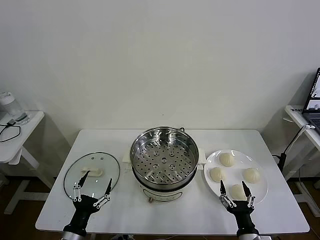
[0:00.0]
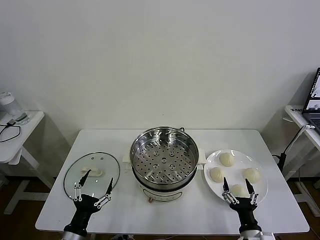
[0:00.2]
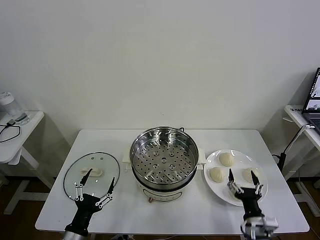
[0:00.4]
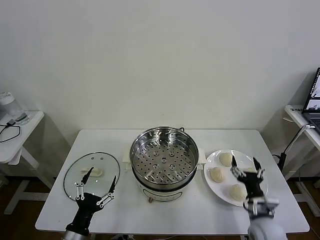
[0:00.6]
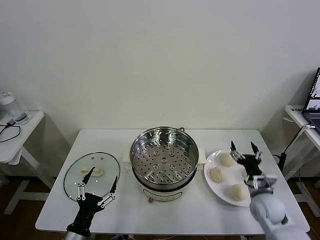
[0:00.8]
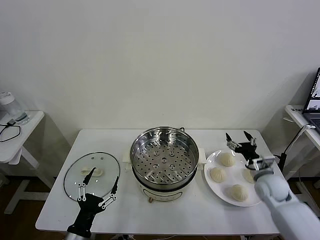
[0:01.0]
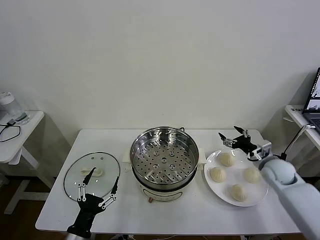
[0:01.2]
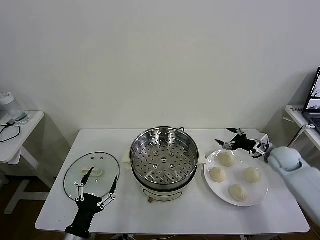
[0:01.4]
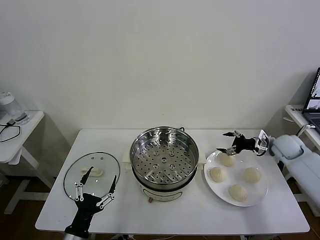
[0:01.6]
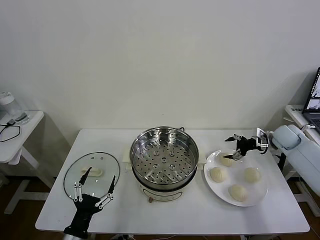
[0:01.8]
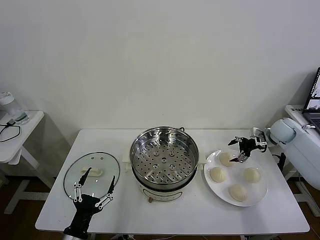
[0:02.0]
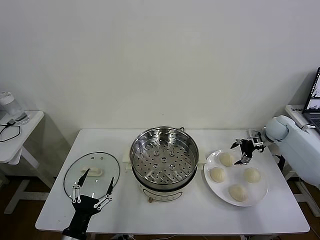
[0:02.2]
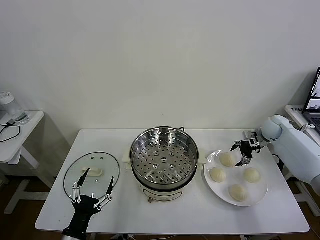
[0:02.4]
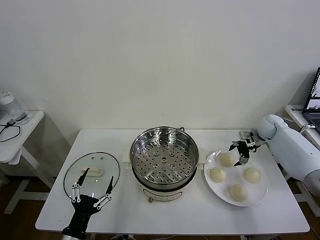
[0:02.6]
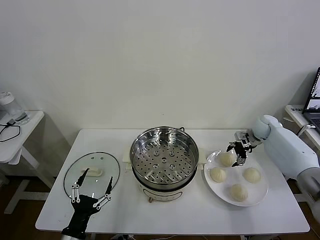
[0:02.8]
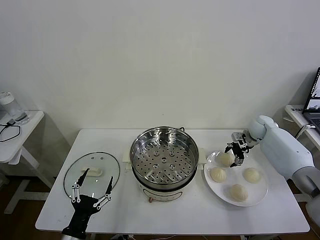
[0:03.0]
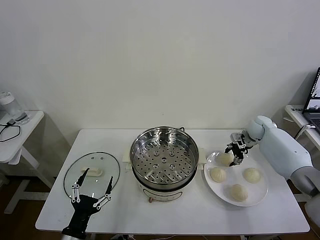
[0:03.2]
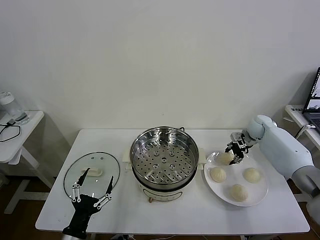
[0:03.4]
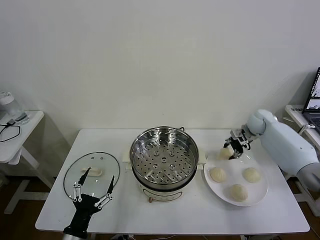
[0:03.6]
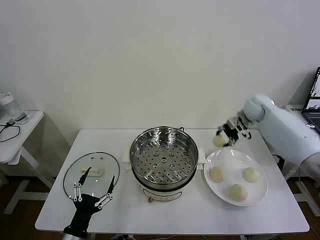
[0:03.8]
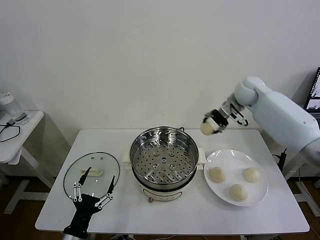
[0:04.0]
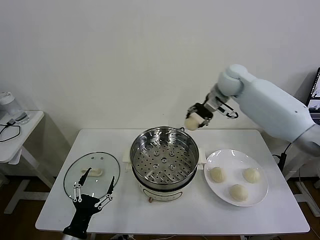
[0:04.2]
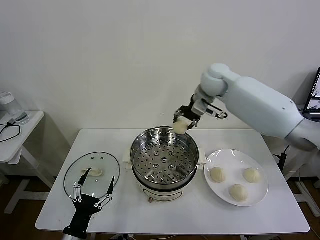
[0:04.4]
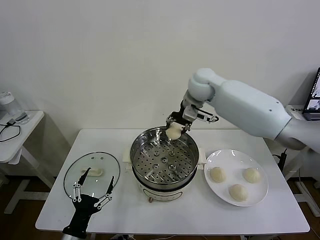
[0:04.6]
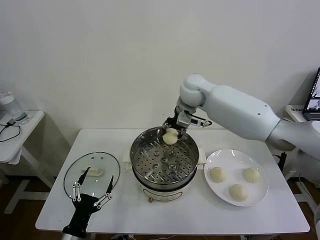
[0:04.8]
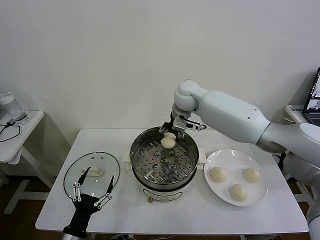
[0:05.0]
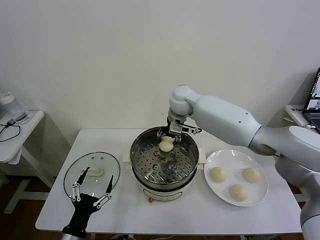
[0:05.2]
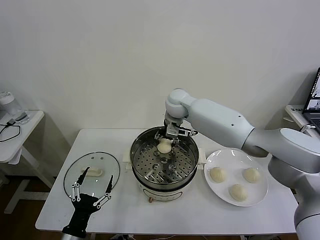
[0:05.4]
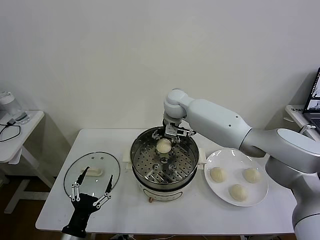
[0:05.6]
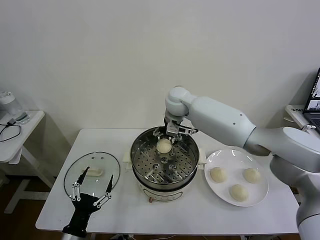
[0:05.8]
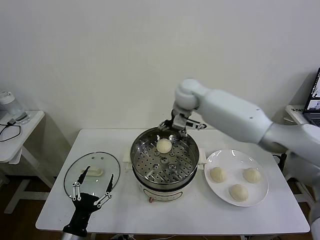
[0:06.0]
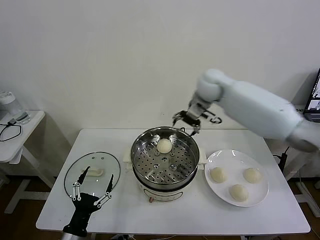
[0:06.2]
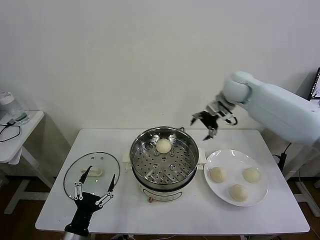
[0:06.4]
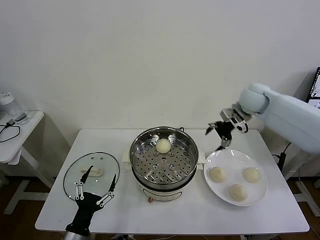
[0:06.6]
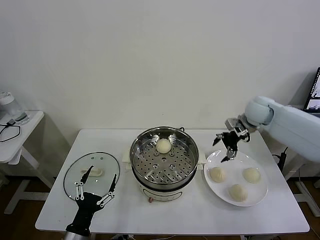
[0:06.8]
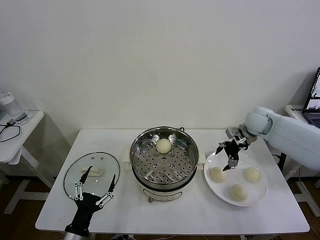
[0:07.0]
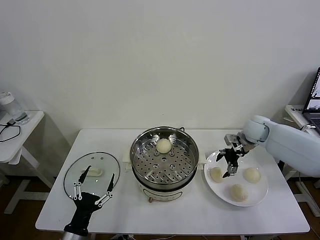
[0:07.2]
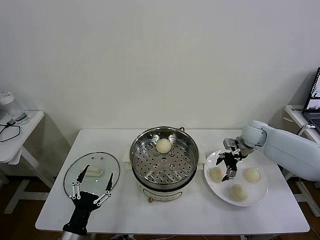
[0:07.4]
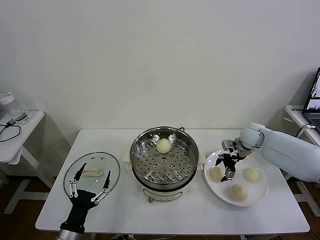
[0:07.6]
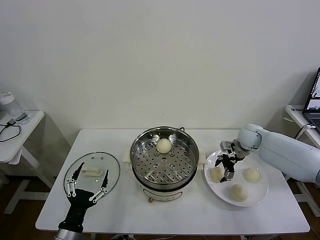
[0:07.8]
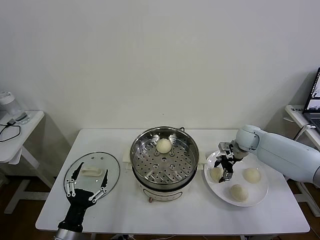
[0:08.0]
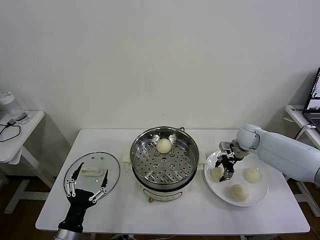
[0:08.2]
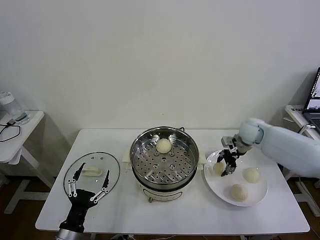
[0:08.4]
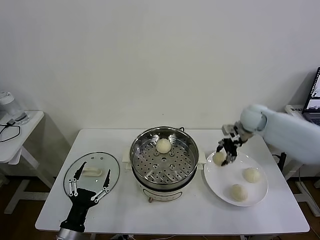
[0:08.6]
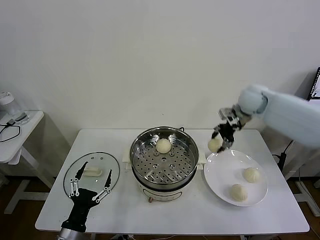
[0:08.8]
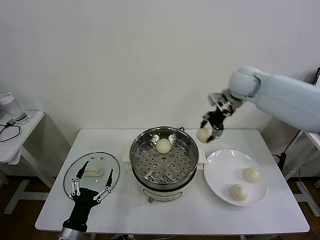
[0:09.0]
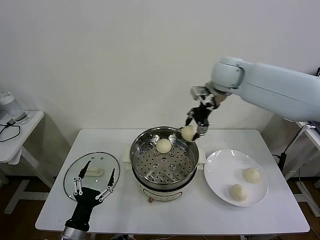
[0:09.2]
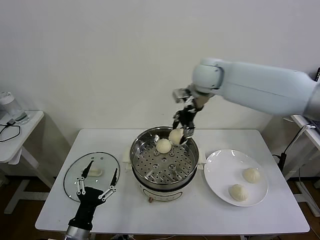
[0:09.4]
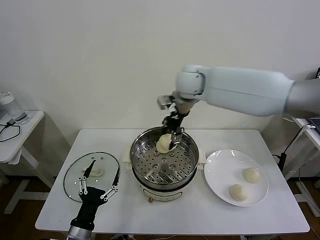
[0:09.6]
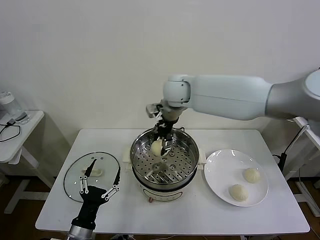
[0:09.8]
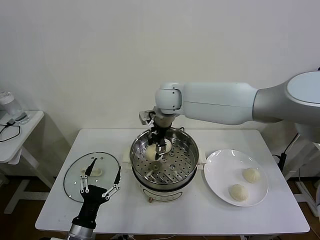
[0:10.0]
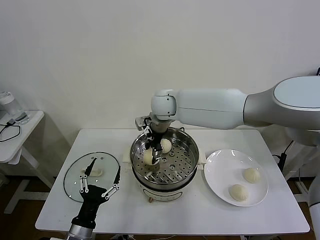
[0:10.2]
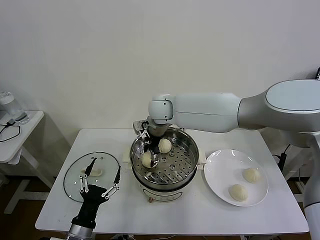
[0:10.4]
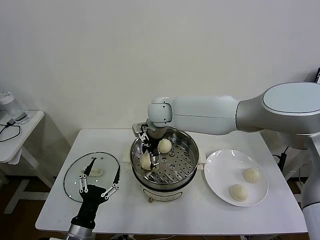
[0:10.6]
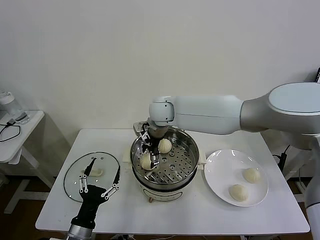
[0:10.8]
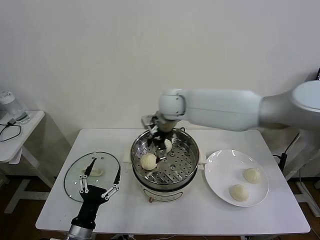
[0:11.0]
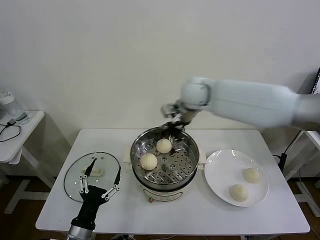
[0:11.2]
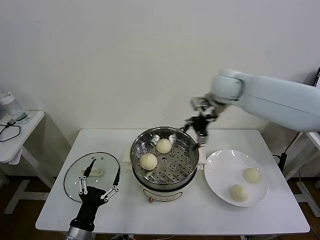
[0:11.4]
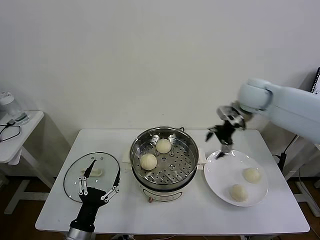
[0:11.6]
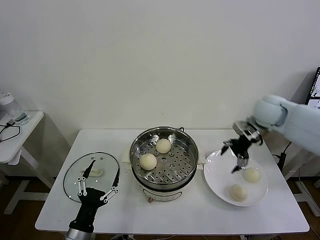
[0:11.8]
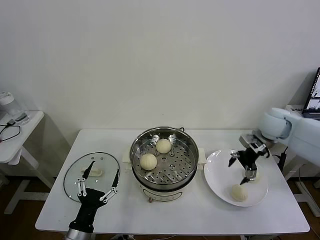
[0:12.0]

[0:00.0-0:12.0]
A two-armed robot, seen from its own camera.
Task of the whole recording: take steamed baozi put them in steamer then cover it.
Step, 0:00.0 to 0:03.2: Grasp the baozi in the plate with right gripper.
Step, 0:03.4 to 0:05.6: Place the baozi on the steamer with right gripper.
Step, 0:05.8 to 0:08.2: Grasp the baozi in the plate with right gripper.
Step, 0:08.4 to 0:10.8: Place the baozi on the steamer with right gripper.
0:01.6 to 0:03.0: The right gripper is displaced forward and to the left by roughly 10 cm, and closes.
0:03.0 to 0:04.4: The right gripper shifts approximately 35 cm to the left and upward, and closes.
0:04.4 to 0:06.0: The right gripper reaches roughly 10 cm to the left, then returns, and opens.
0:06.0 to 0:07.6: The right gripper moves to the right and downward, approximately 30 cm.
0:07.6 to 0:09.0: The right gripper is displaced upward and to the left by about 25 cm, and closes up.
0:09.0 to 0:10.4: The right gripper goes roughly 25 cm to the left and downward, and opens its fingers.
0:10.4 to 0:12.0: The right gripper heads to the right, covering approximately 35 cm.

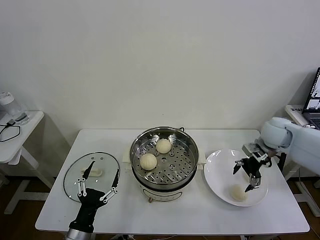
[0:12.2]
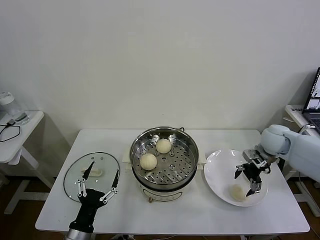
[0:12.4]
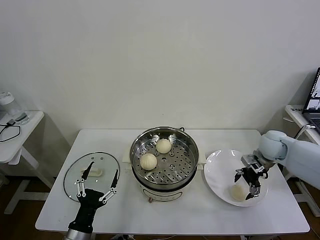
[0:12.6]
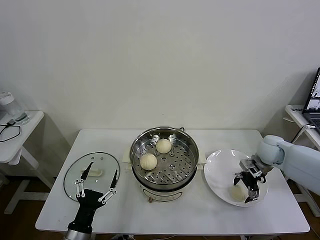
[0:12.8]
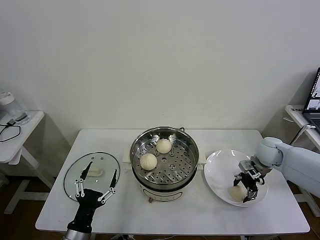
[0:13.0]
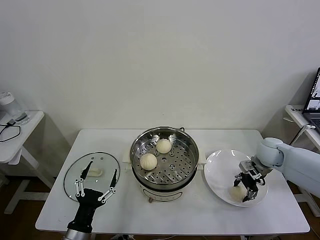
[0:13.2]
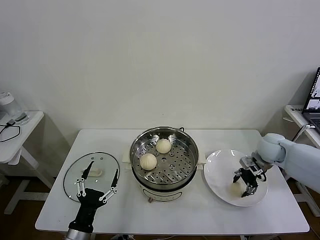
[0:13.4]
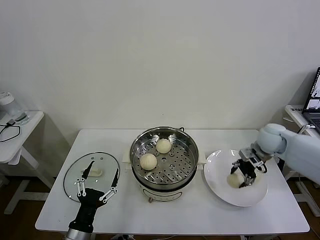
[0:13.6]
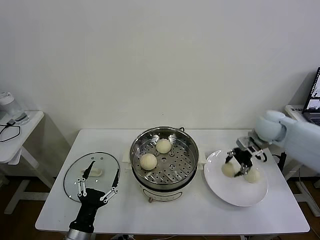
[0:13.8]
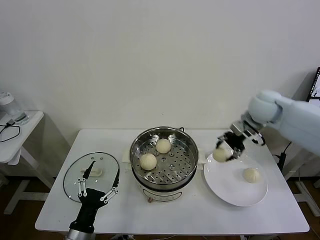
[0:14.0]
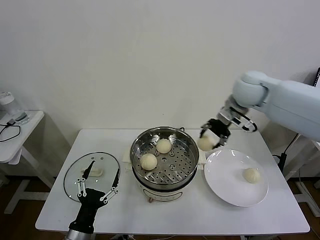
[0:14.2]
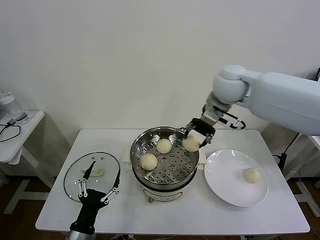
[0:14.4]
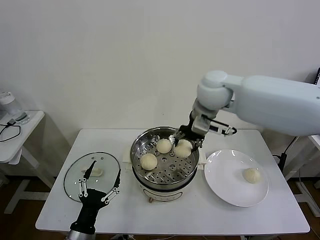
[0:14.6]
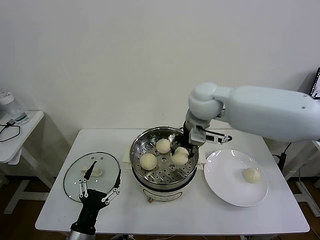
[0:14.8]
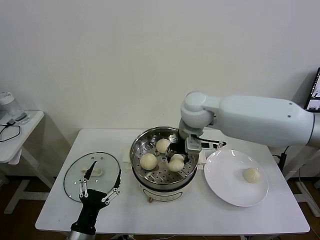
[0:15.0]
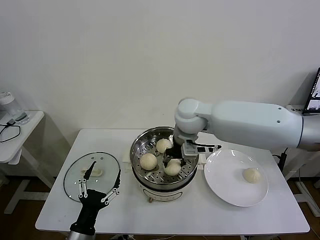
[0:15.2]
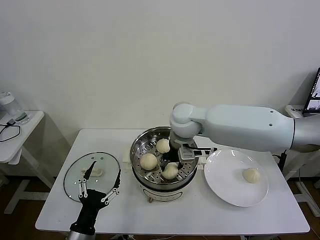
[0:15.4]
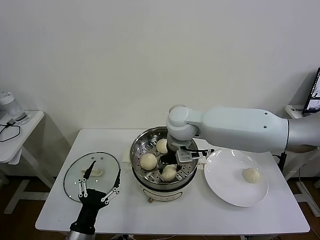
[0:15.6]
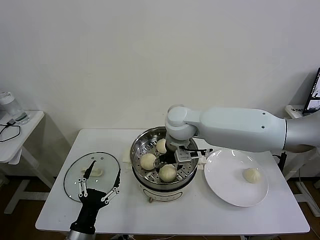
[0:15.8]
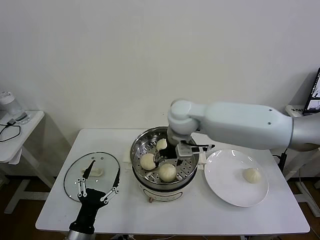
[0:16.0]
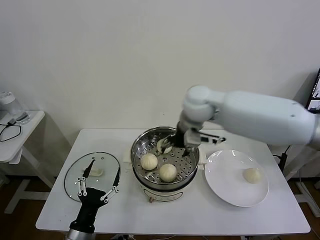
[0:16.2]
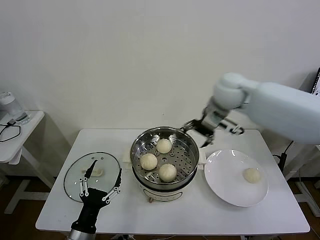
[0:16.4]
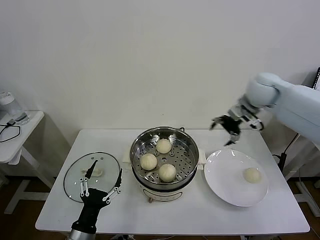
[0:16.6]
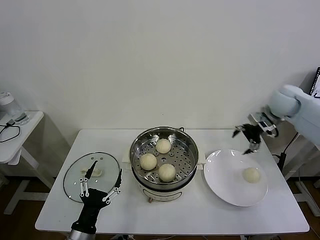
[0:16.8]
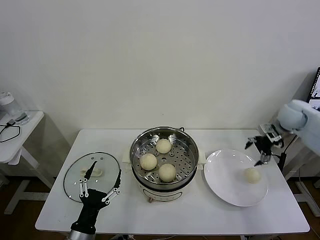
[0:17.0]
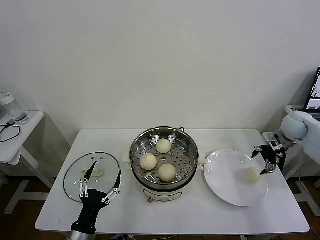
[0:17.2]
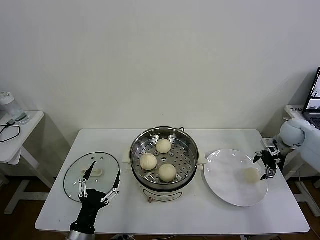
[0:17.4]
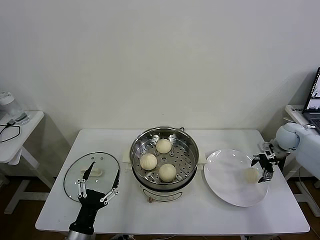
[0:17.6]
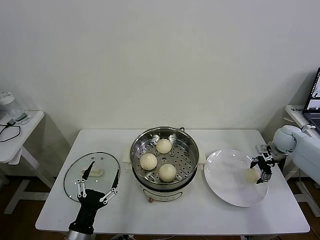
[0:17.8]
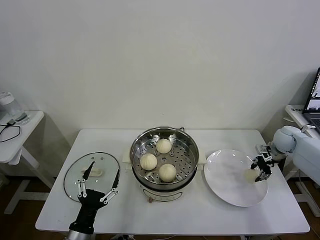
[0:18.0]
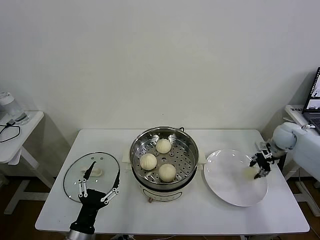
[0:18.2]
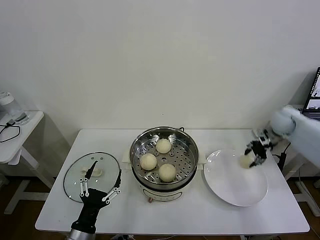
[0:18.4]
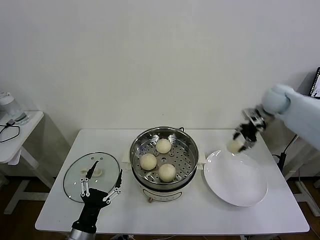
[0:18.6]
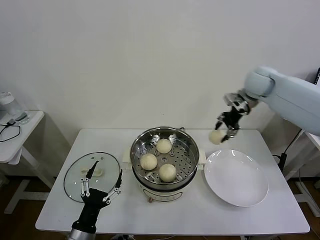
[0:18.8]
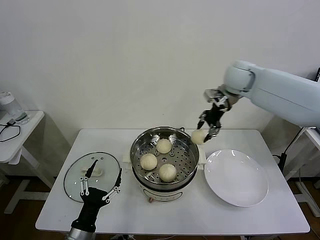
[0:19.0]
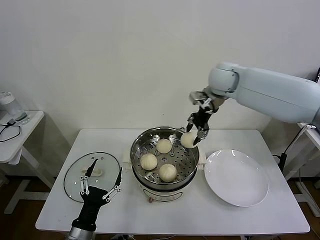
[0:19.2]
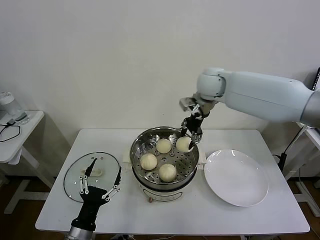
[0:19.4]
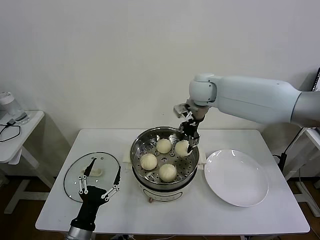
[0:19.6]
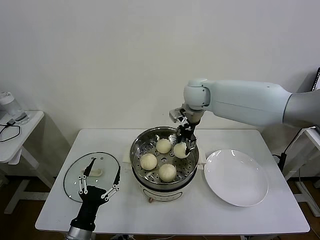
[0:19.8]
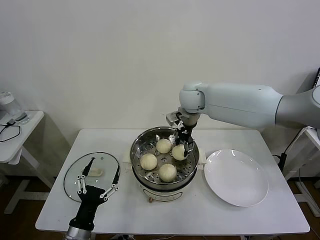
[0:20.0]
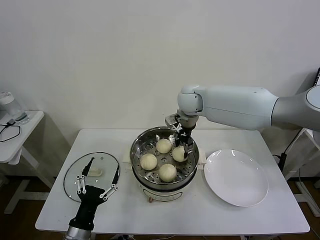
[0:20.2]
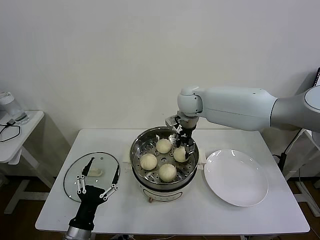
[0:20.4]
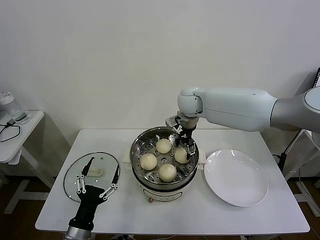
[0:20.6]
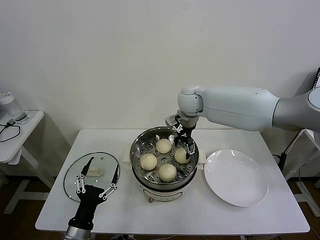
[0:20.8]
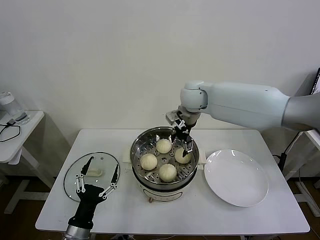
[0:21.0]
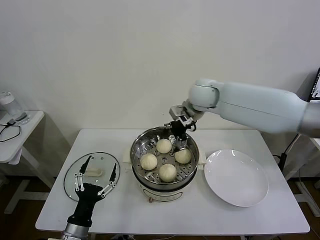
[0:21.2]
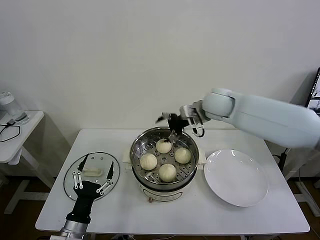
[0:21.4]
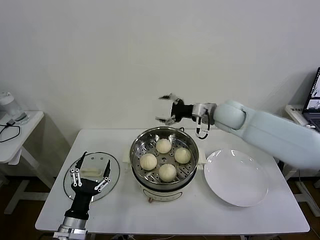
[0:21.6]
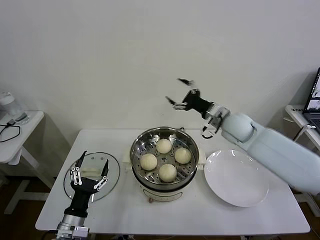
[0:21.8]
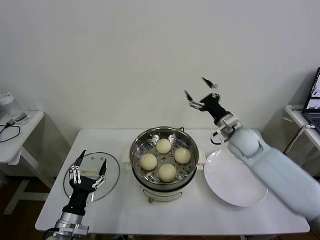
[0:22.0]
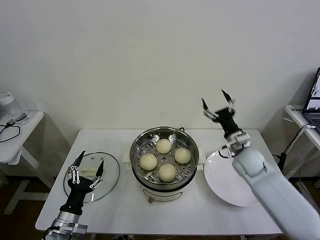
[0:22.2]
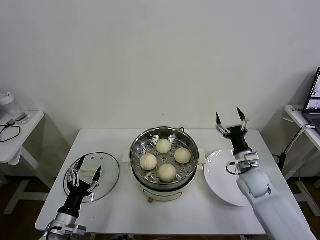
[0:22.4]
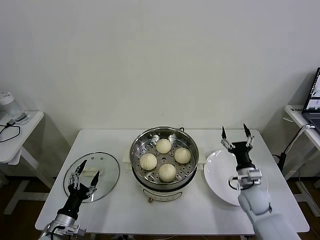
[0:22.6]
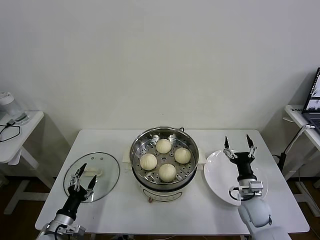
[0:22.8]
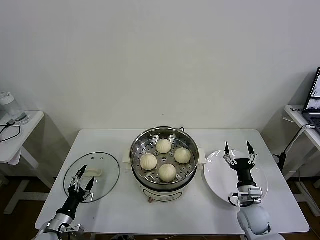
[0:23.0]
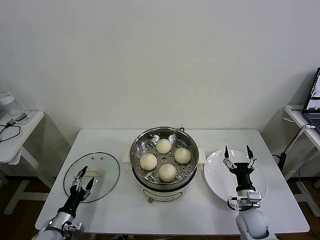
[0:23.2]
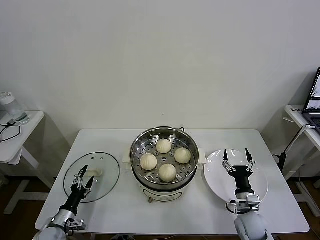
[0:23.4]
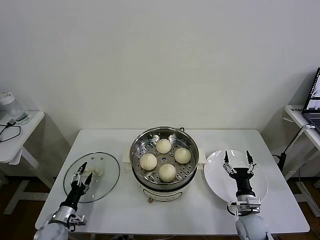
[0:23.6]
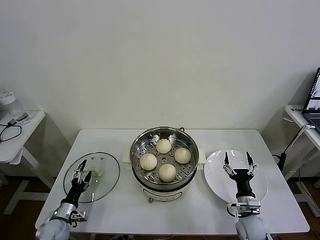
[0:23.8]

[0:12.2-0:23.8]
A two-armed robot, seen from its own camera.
Task of the whole recording: take steamed baozi put them in steamer then cover it.
Step, 0:13.4 to 0:15.8: Place the baozi on the steamer with right gripper.
Step, 0:16.0 to 0:18.0: Grasp the baozi in the plate with right gripper.
Step, 0:18.2 to 0:20.6: Place the baozi on the steamer with right gripper.
0:12.2 to 0:13.6: The right gripper closes.
0:13.6 to 0:15.0: The right gripper shifts roughly 30 cm to the left and upward.
0:15.0 to 0:16.6: The right gripper is displaced to the right by about 25 cm, and opens.
0:16.6 to 0:18.0: The right gripper travels downward and to the right by roughly 25 cm, and closes.
0:18.0 to 0:19.4: The right gripper is displaced to the left and upward by approximately 40 cm.
0:19.4 to 0:21.0: The right gripper moves some 5 cm, and opens.
0:21.0 to 0:22.4: The right gripper is displaced downward, to the right and backward by some 35 cm. The left gripper moves to the left, roughly 5 cm.
0:22.4 to 0:23.8: The right gripper goes some 15 cm backward and downward, while the left gripper goes about 15 cm downward, to the left and forward.
